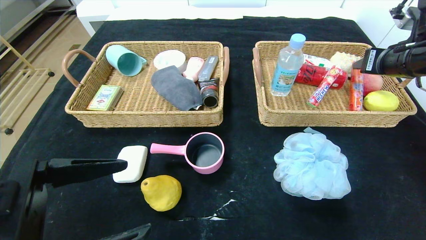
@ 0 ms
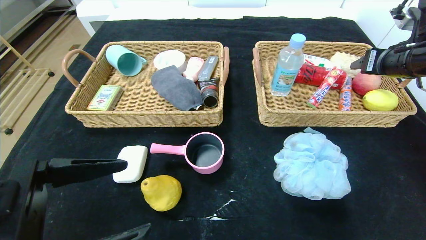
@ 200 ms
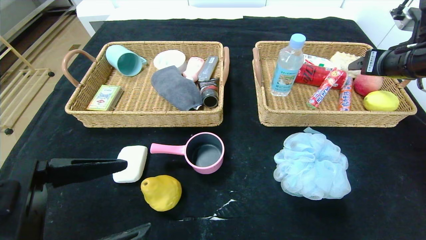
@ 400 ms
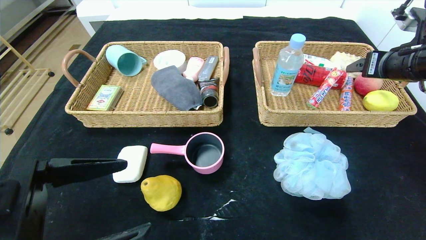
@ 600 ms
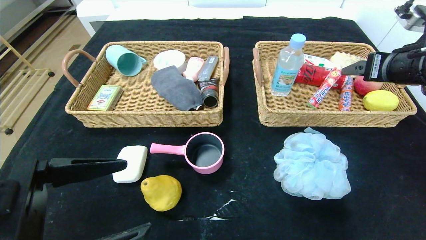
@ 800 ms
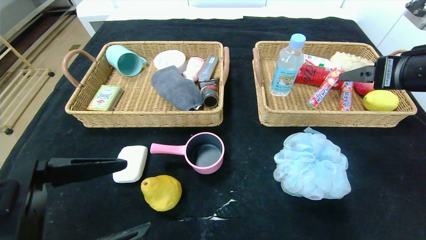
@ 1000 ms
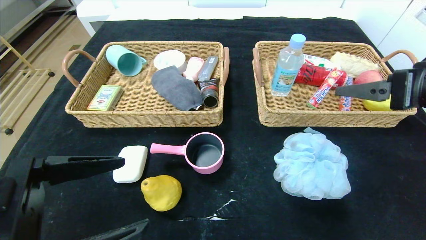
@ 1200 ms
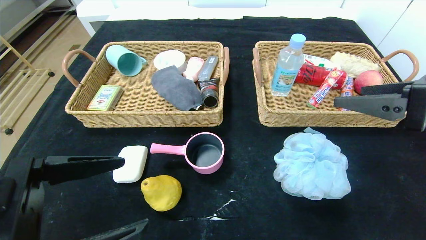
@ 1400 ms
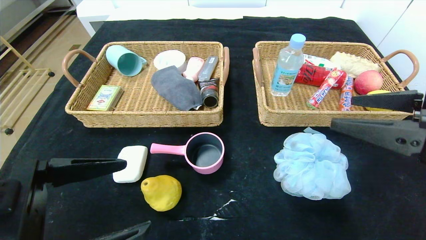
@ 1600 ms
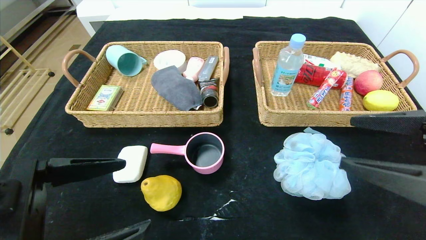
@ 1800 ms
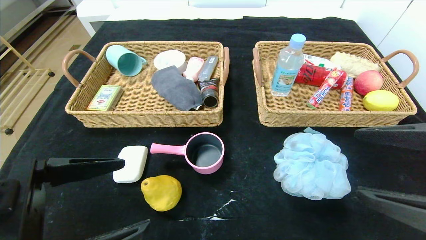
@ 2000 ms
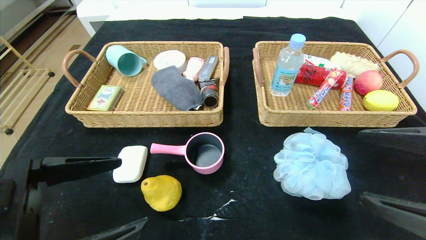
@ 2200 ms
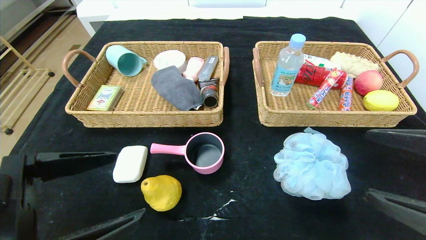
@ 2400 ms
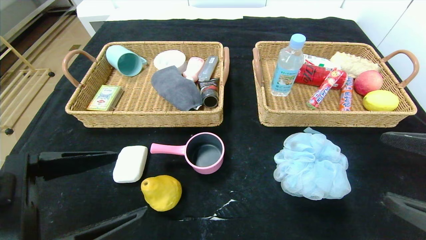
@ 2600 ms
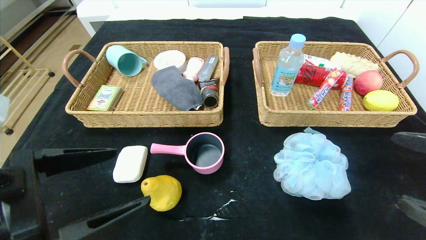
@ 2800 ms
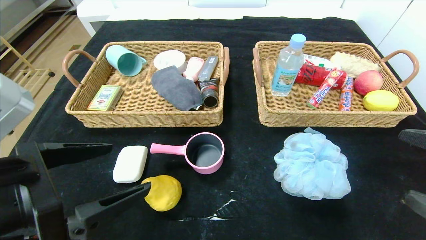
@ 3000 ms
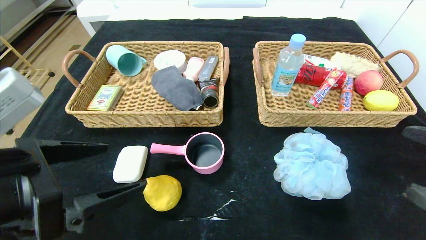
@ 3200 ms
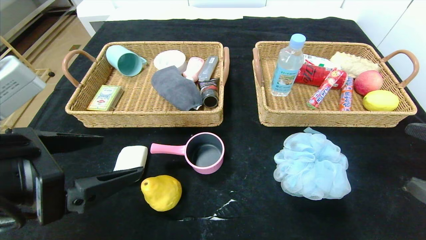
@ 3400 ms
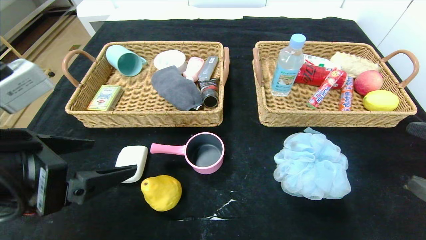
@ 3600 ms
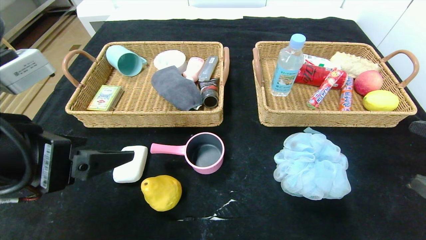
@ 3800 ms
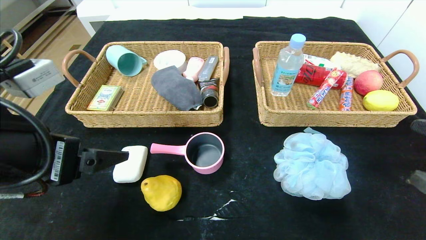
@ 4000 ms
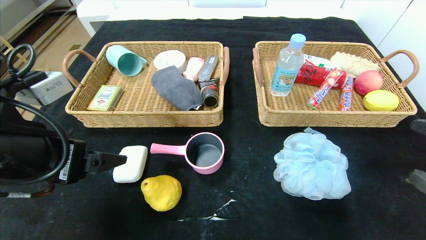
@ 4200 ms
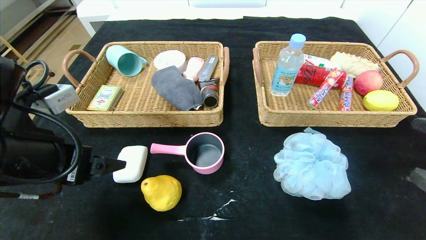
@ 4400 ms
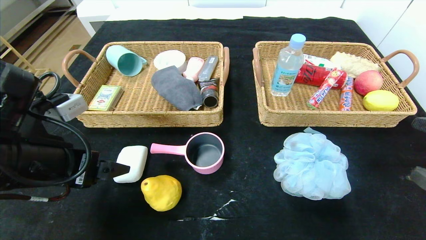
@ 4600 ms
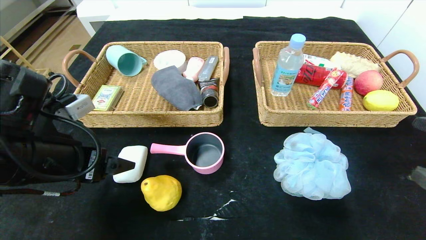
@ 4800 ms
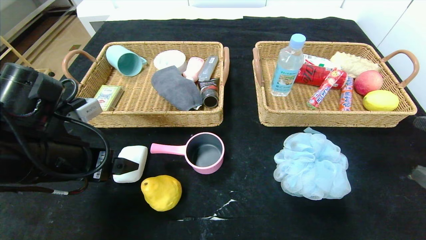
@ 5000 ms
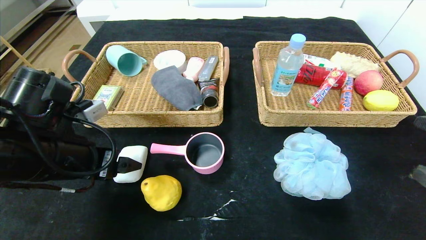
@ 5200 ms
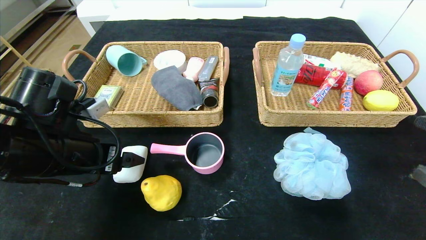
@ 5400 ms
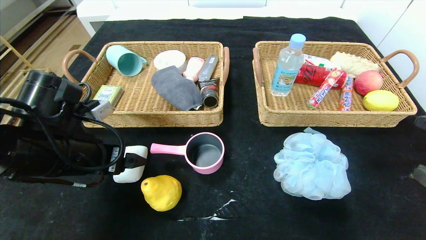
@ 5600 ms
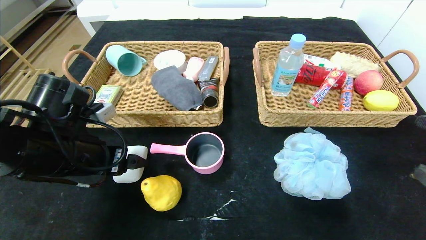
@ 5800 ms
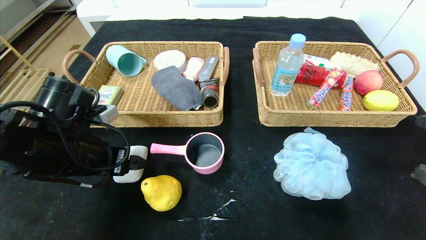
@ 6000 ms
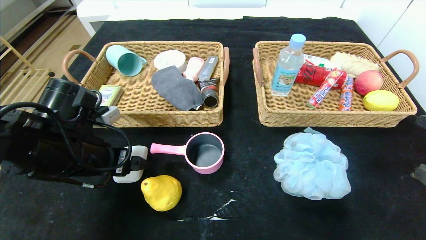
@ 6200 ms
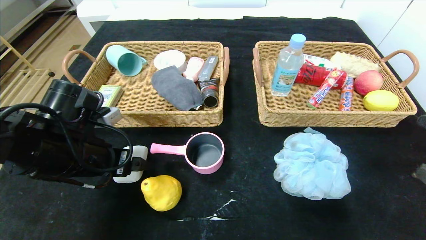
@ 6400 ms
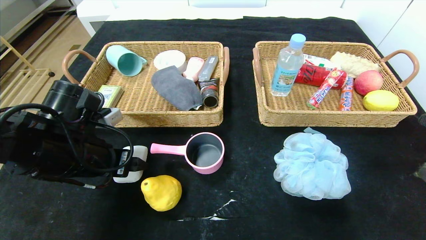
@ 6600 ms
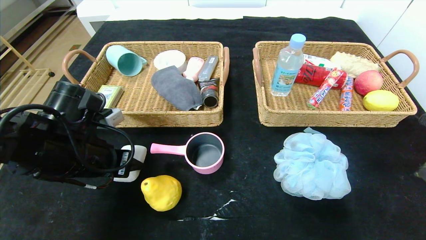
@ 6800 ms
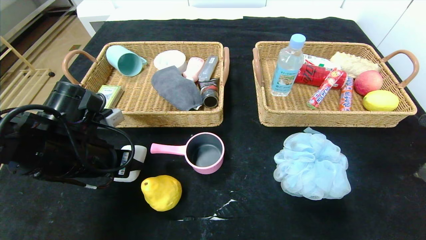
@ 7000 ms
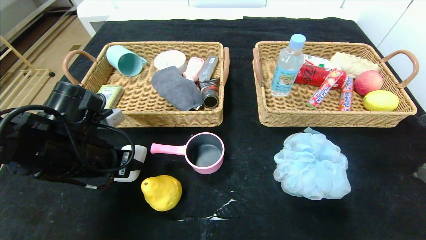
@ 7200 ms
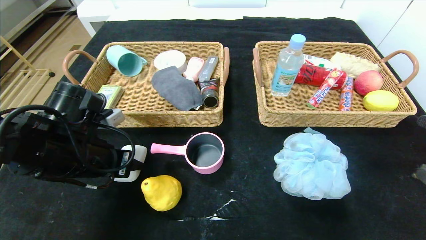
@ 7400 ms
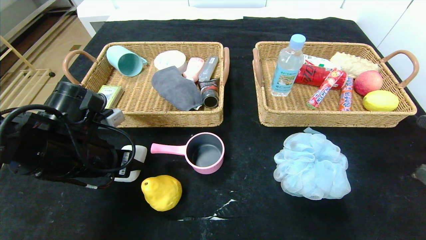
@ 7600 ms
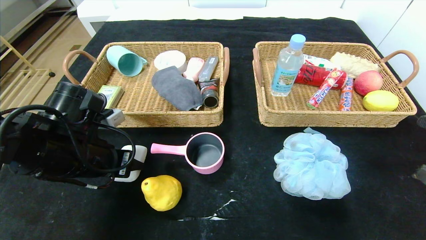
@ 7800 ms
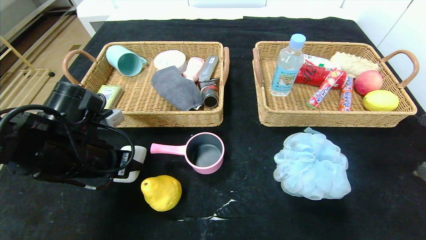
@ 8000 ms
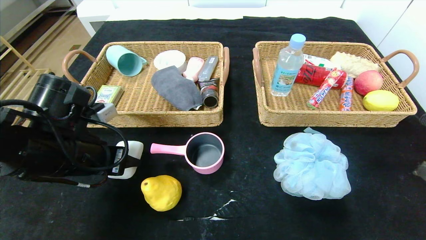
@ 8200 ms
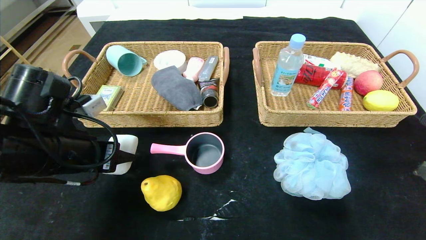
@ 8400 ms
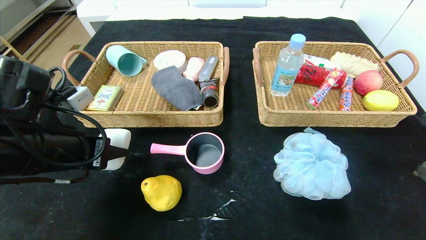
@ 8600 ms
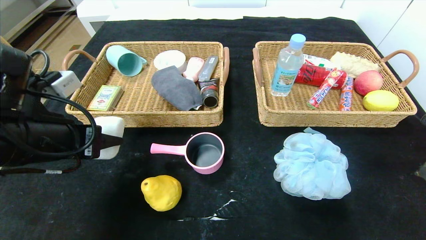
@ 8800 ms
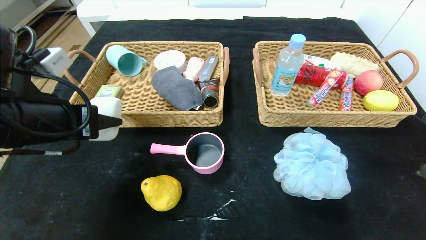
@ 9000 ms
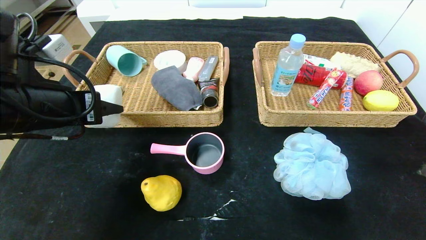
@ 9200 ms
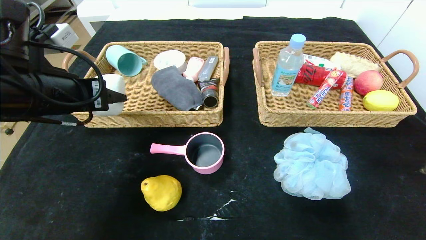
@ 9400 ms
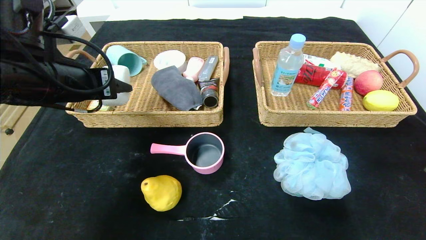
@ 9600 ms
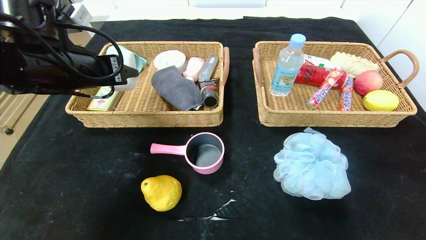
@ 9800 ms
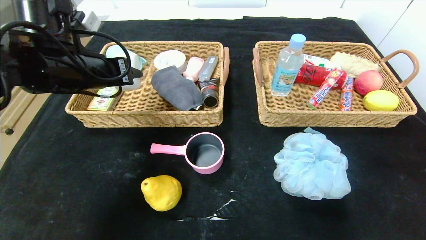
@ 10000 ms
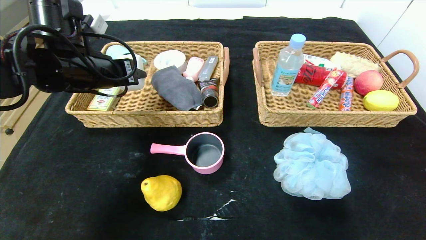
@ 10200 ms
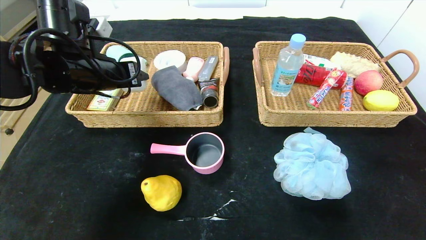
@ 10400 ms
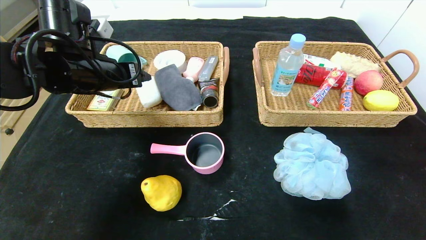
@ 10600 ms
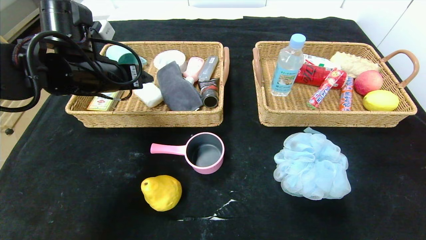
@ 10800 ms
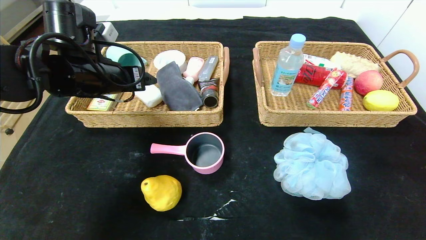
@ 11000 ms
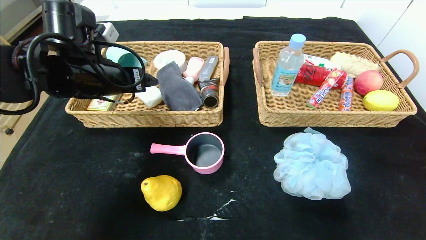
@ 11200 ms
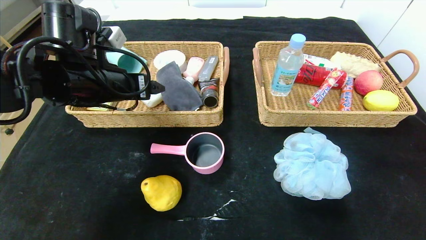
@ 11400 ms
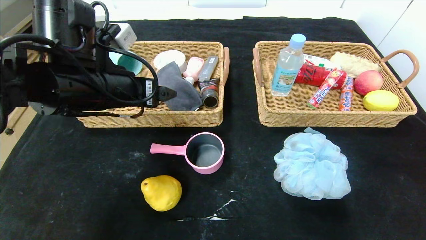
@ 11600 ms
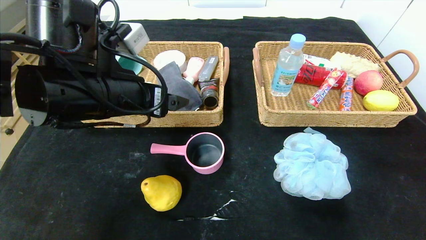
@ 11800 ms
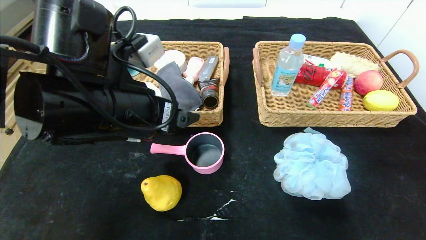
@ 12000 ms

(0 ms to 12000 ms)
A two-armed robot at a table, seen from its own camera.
Step, 200 ms - 10600 ms: Grasp the white eraser and put it in the left basket.
0 ms - 1600 ms: The right gripper shifts some 20 cm backward, and opens its fingers.
1600 ms - 3000 ms: The right gripper travels backward by roughly 5 cm.
3000 ms - 4400 ms: The left gripper goes some 5 cm forward.
4400 ms - 6000 ms: The left gripper moves forward and downward, about 10 cm.
6000 ms - 7600 ms: The left gripper closes up.
7600 ms - 9000 ms: The left gripper moves upward, roughly 10 cm.
9000 ms - 10400 ms: The left gripper moves forward, some 10 cm.
10400 ms - 12000 ms: The left gripper is displaced backward and to the right by about 15 cm, and opens up.

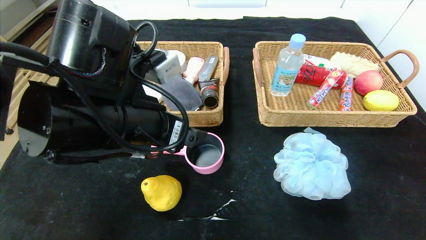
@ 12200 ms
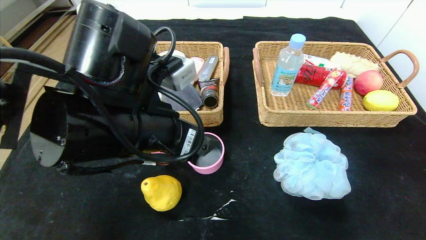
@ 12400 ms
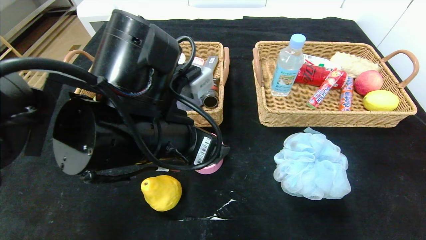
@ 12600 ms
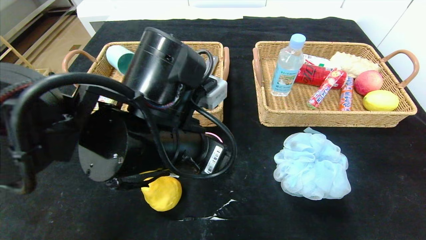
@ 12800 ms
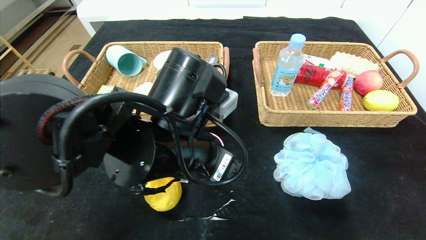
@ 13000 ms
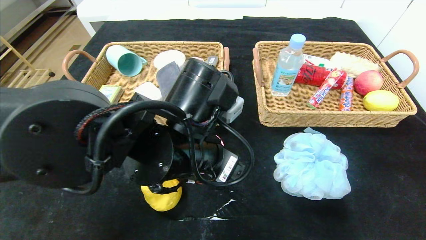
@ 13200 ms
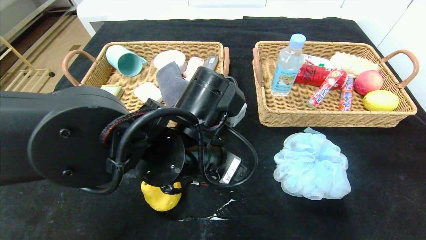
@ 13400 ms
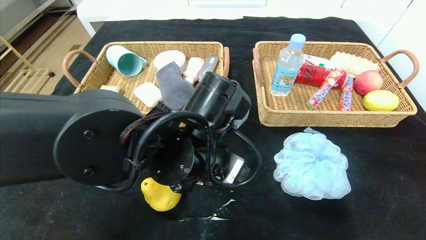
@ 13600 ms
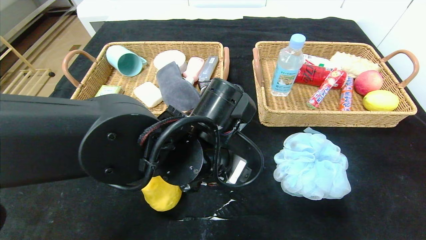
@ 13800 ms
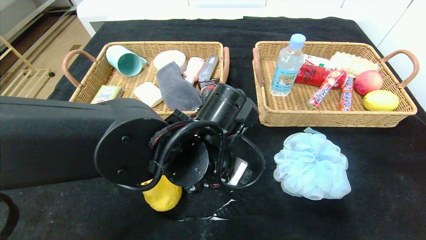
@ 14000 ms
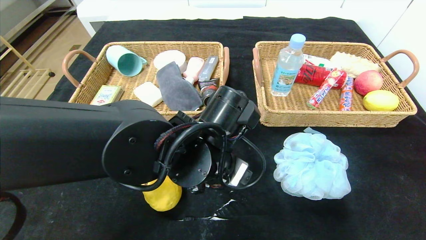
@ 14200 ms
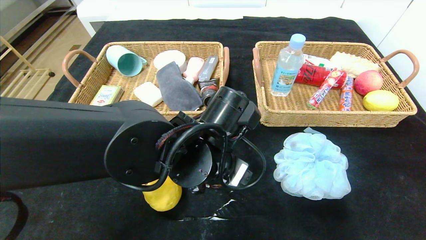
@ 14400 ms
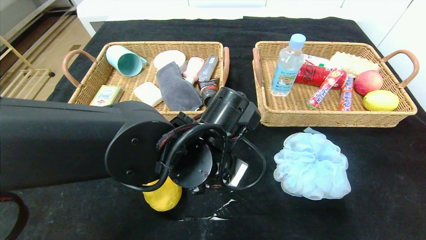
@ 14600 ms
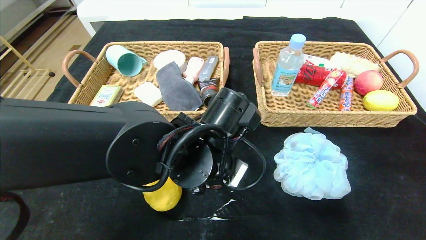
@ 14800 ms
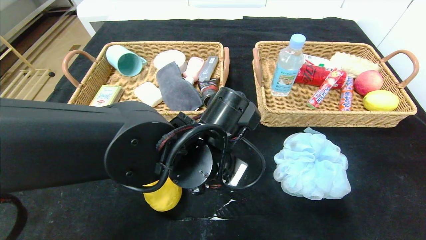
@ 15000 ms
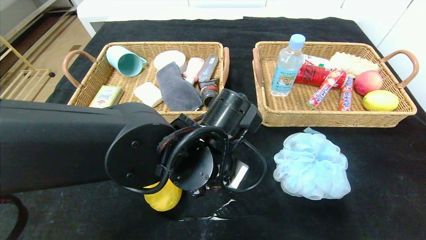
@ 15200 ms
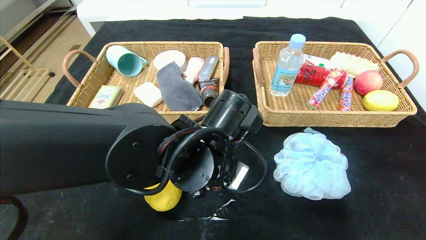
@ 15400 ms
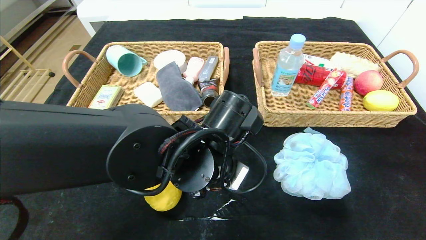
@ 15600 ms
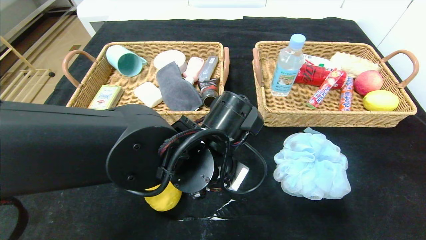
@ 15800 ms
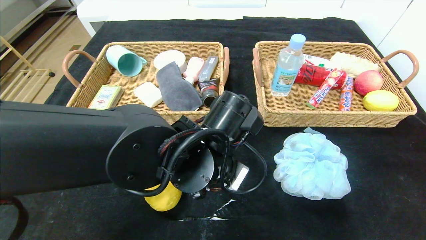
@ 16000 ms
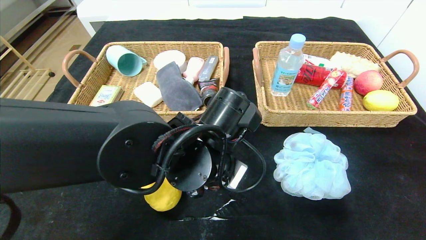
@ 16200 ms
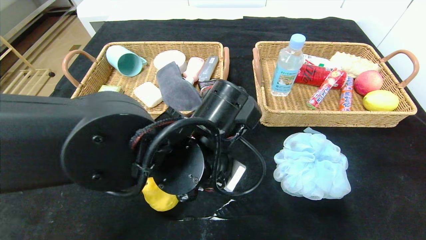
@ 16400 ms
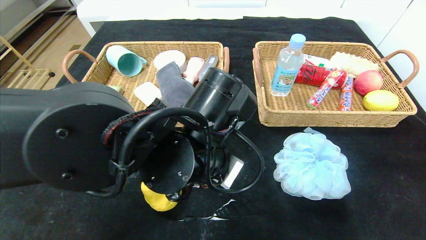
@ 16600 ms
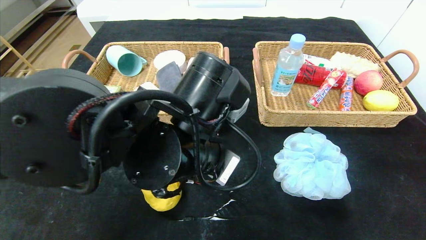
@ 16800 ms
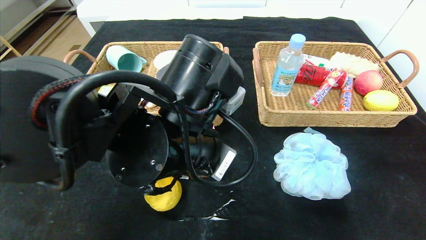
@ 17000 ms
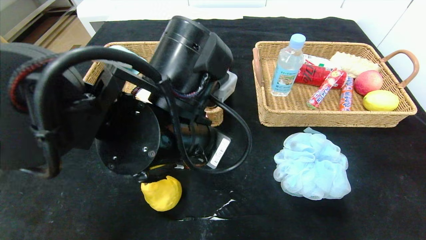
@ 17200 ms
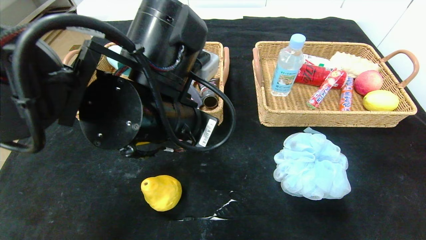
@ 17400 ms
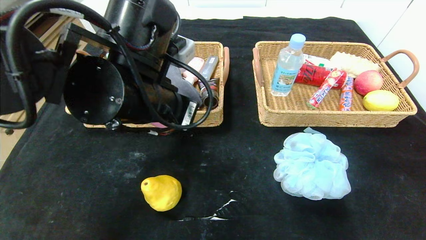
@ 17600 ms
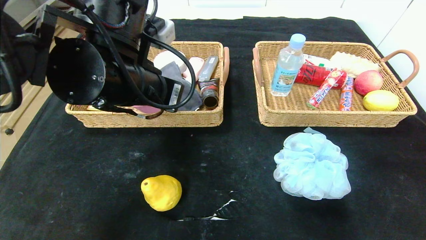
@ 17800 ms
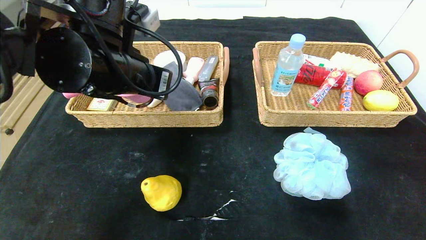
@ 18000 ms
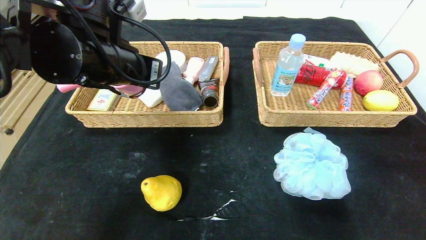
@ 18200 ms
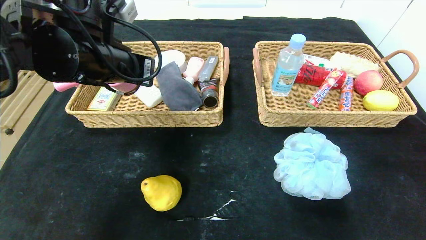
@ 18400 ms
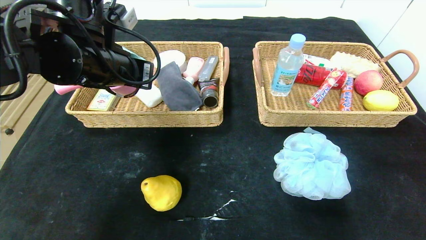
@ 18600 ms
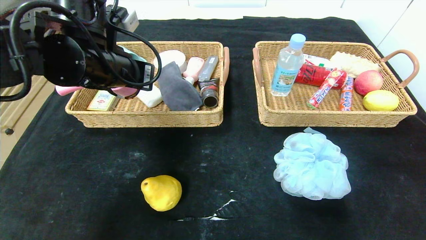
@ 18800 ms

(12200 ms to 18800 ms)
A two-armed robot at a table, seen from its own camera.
12200 ms - 13800 ms: The left gripper shifts approximately 10 cm to the right and downward.
13800 ms - 15400 ms: The left gripper closes up.
15400 ms - 17200 ms: The left gripper goes roughly 5 cm upward.
17200 ms - 18800 ms: The left gripper travels to the left, forward and upward by about 15 cm.
